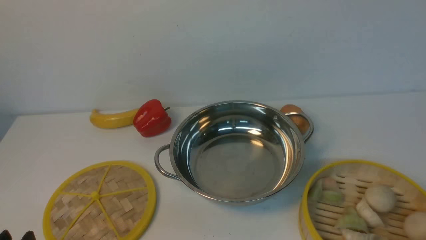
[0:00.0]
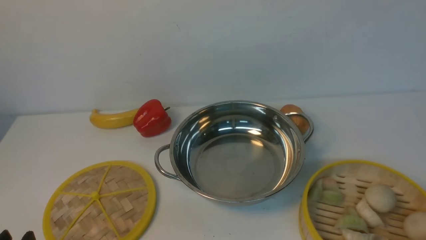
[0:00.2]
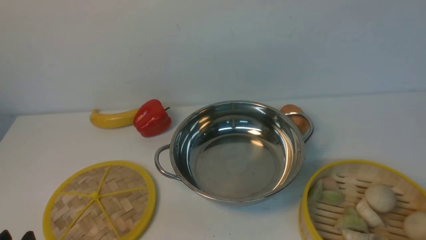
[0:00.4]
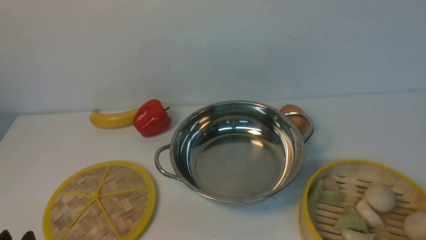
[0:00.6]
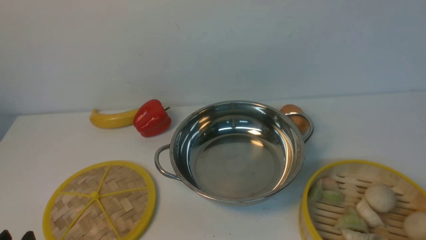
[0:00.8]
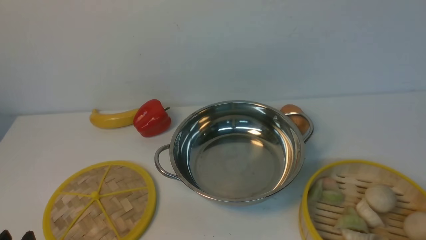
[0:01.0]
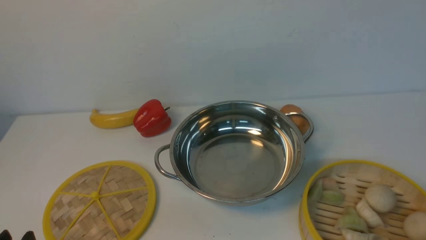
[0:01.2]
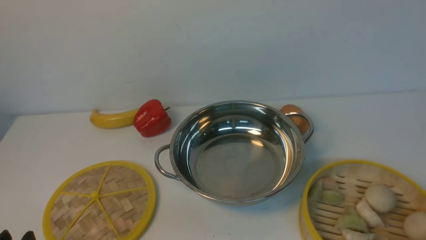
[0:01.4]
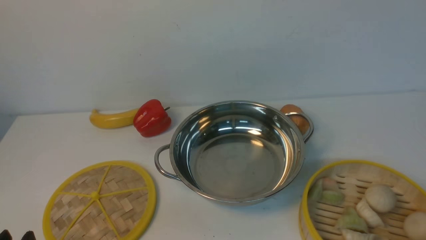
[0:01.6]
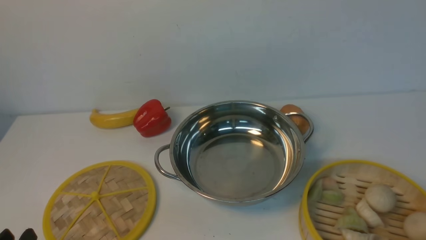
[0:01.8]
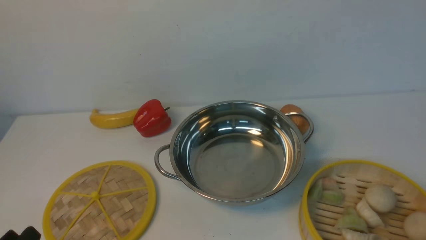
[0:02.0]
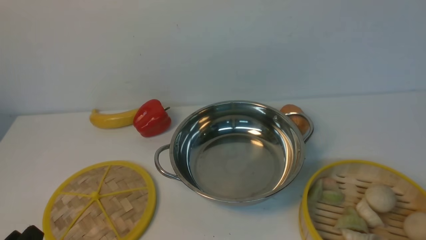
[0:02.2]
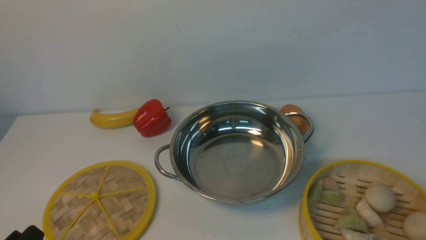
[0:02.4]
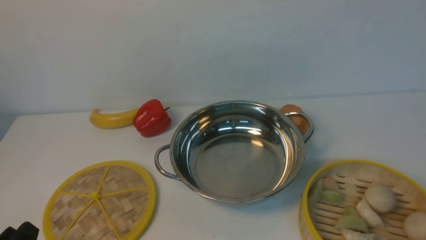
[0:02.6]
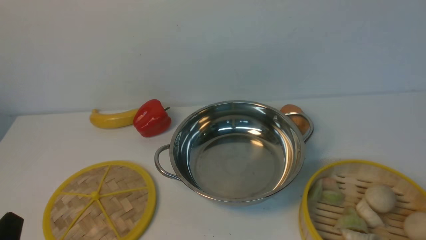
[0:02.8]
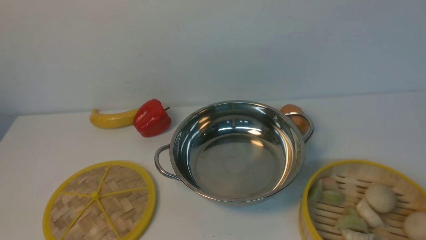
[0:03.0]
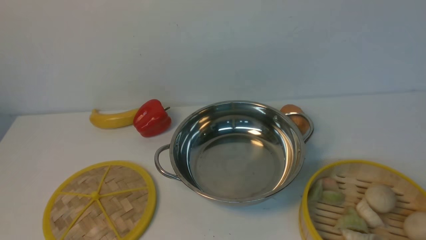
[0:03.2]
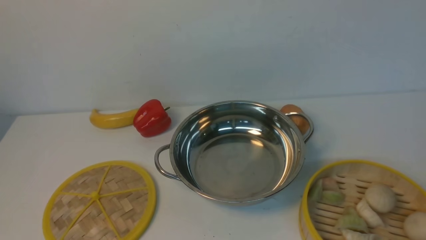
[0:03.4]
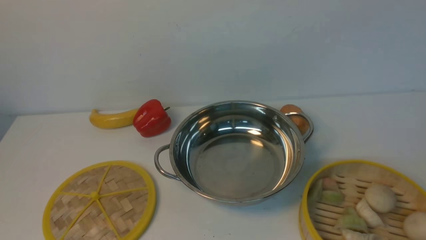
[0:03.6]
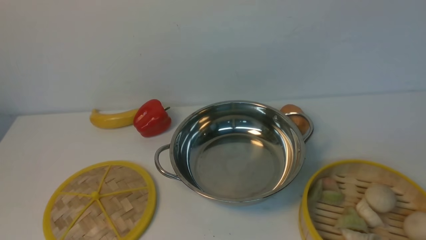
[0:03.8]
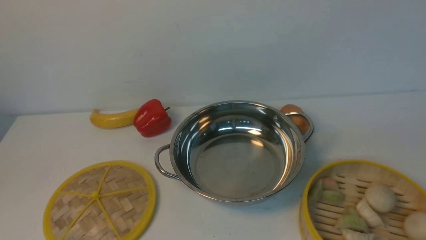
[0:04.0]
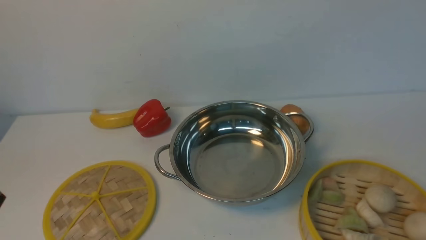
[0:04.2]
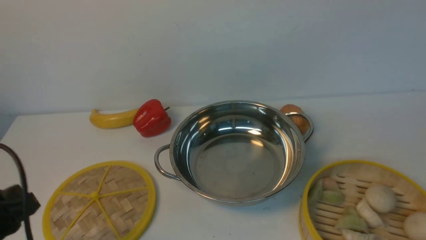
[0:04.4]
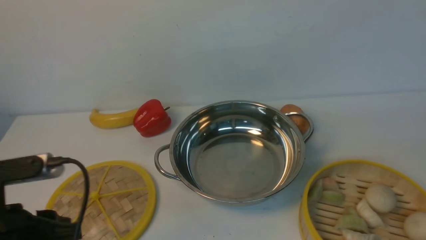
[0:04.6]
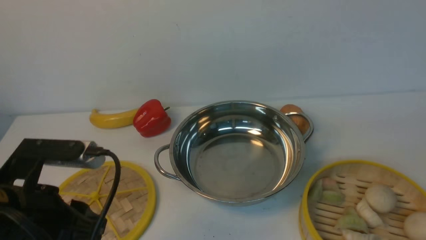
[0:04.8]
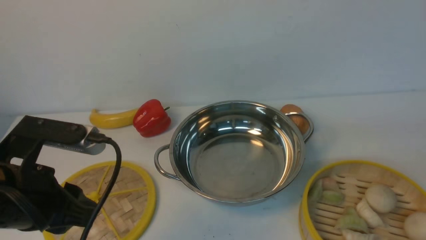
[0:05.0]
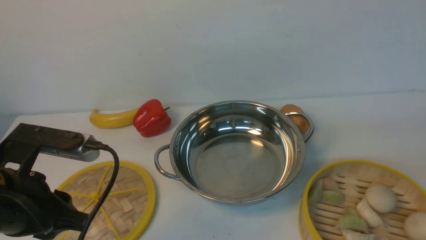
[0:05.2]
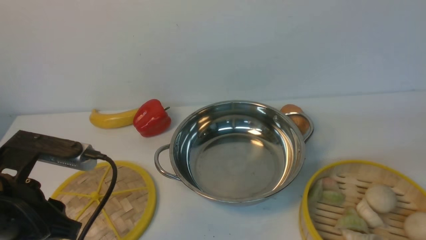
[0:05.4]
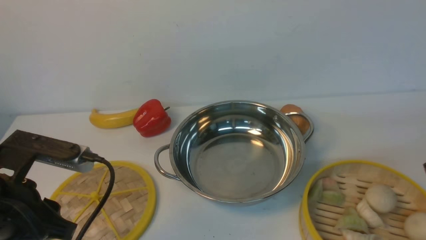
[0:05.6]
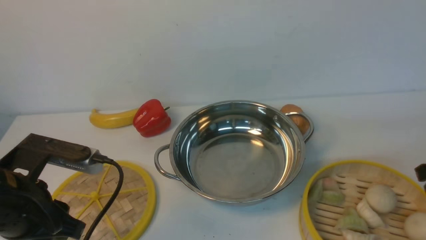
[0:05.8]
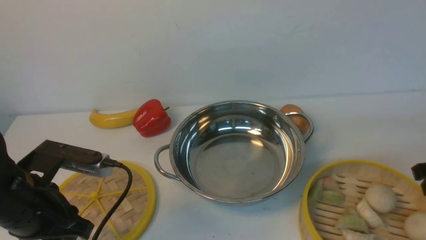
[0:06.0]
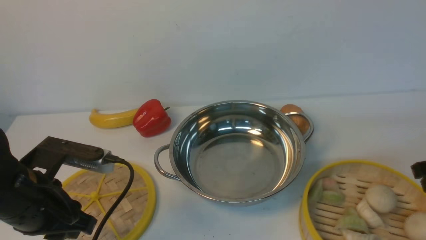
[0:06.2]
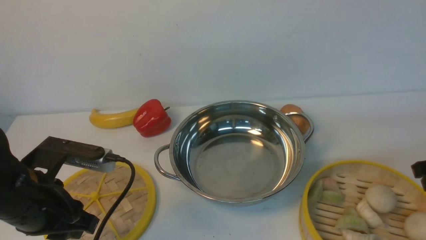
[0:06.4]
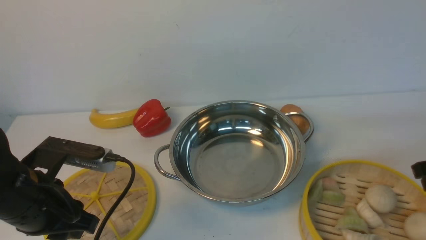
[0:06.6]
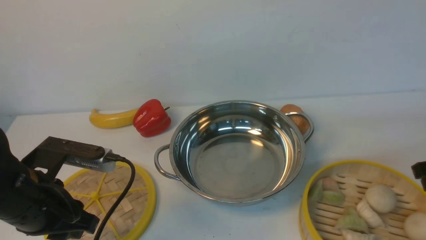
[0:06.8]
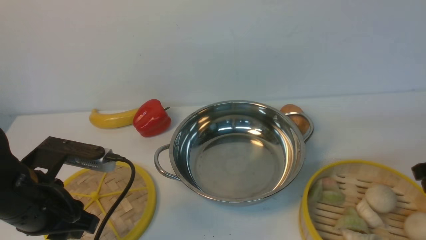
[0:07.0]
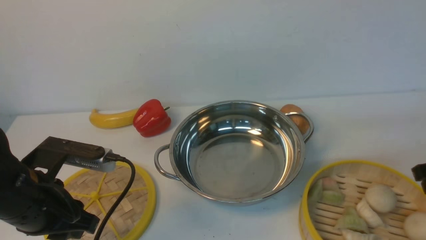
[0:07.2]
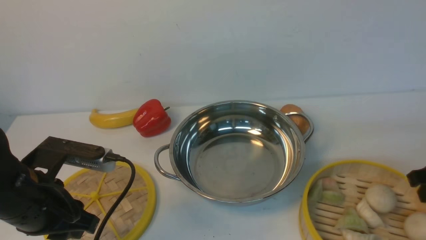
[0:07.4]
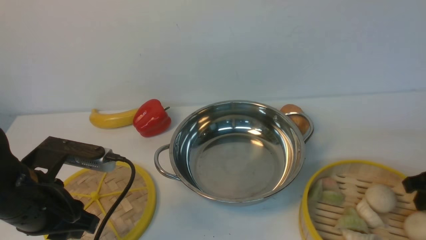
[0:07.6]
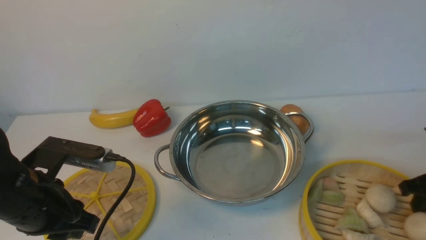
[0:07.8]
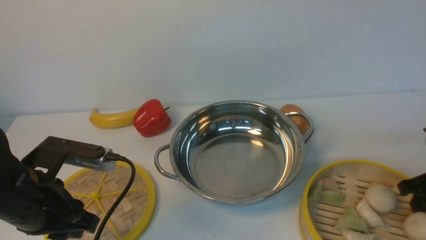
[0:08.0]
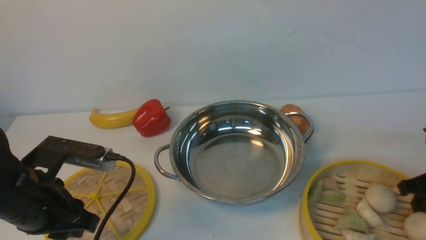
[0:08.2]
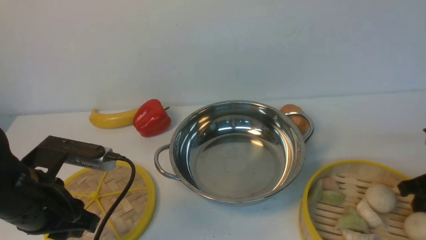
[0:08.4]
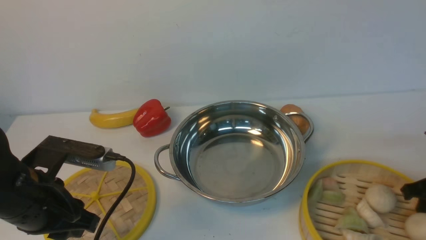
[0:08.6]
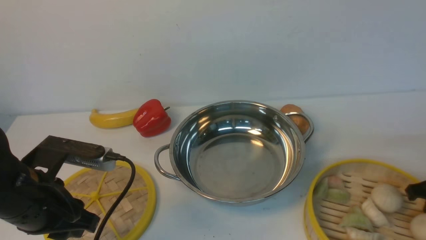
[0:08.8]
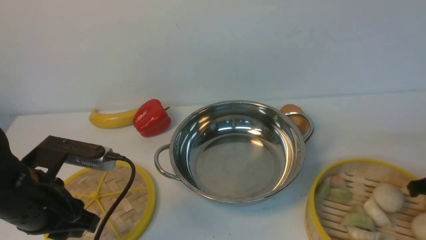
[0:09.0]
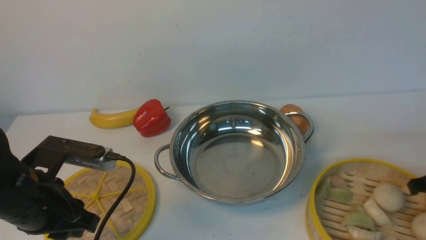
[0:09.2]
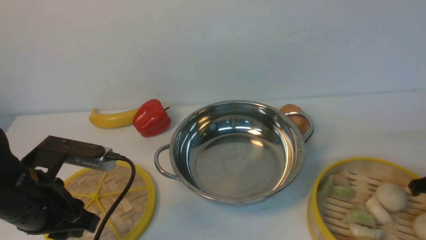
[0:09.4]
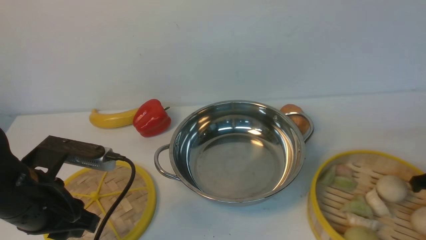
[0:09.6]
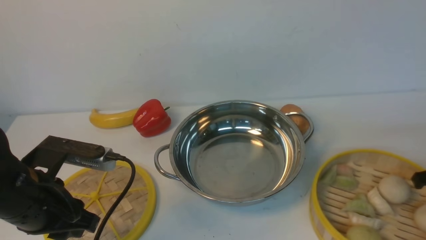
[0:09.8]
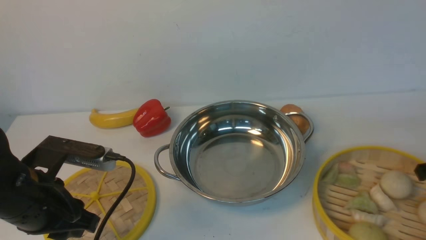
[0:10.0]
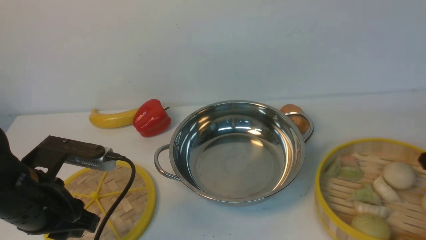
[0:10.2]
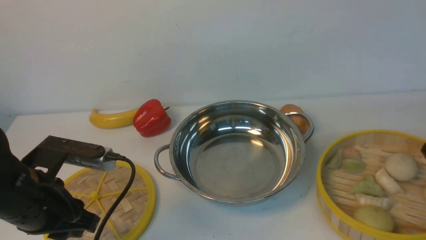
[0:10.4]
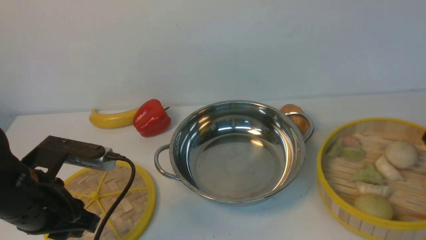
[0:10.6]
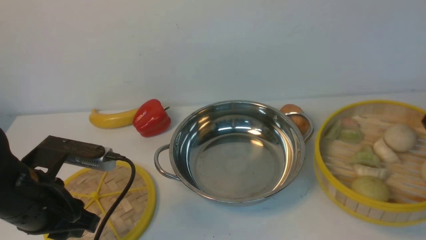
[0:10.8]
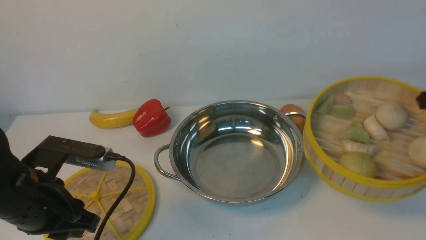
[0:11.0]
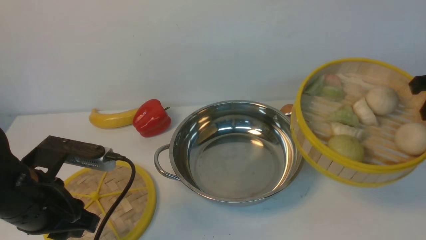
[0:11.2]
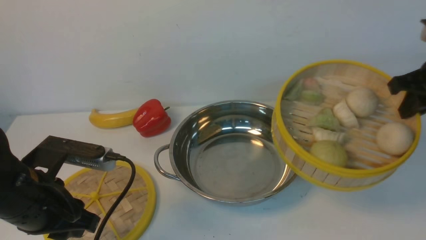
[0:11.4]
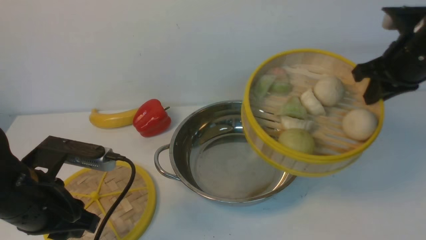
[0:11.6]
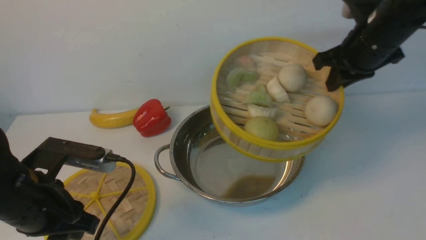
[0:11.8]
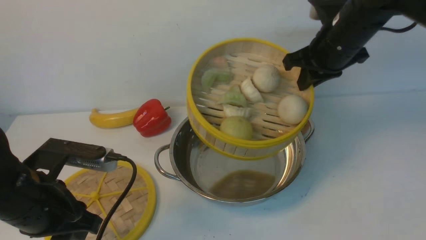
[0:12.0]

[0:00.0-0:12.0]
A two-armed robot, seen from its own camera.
Task of the whole recording: place the steamer in the pot on the white table, and put the lid on the steamer.
Step, 0:00.0 to 0:10.6: use the right arm to lift the steamer closest to it.
0:03.0 to 0:04.4: The left gripper moves forward and upward, approximately 10 cm.
0:04.4 to 0:06.0: The left gripper shifts approximately 10 cm forward.
0:06.0 to 0:09.0: The grippers make only small movements.
0:09.0 to 0:10.4: The right gripper shifts roughly 5 cm upward.
0:10.4 to 0:12.0: The right gripper travels to the left, forward and upward by about 20 cm.

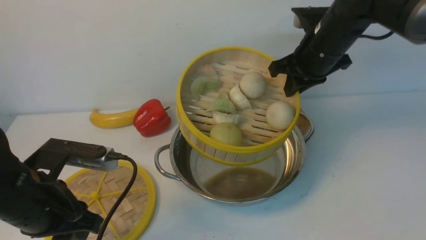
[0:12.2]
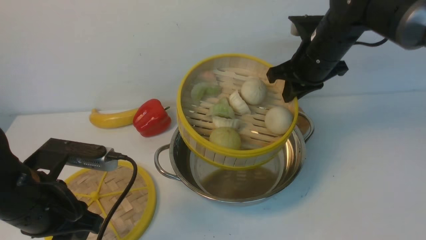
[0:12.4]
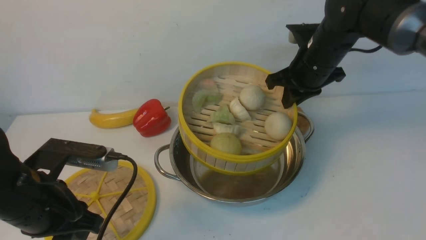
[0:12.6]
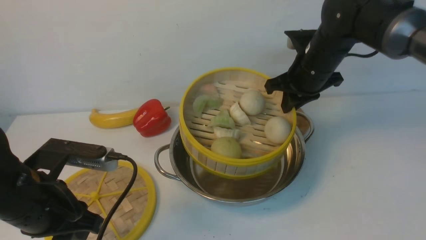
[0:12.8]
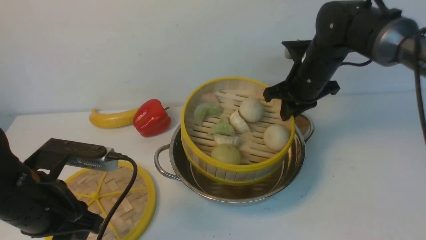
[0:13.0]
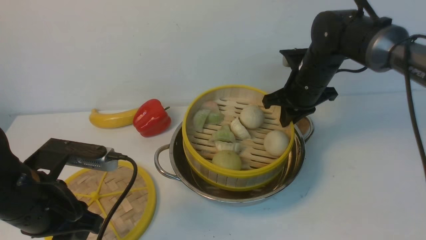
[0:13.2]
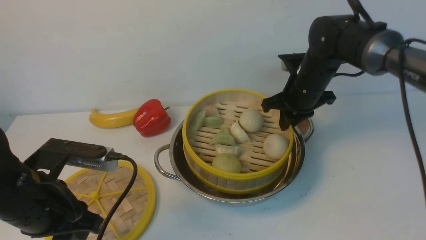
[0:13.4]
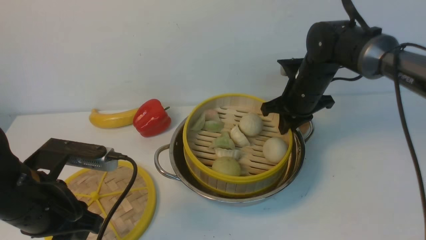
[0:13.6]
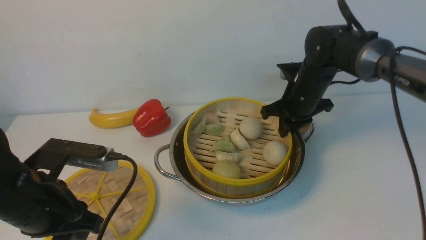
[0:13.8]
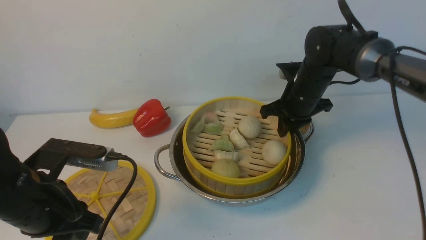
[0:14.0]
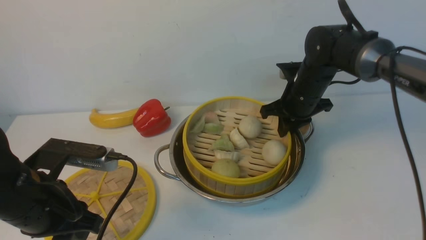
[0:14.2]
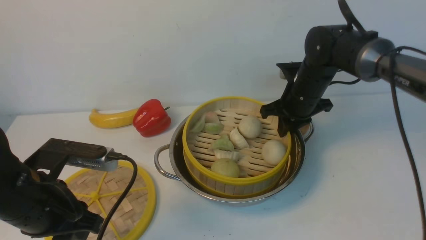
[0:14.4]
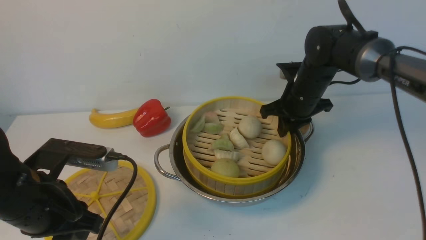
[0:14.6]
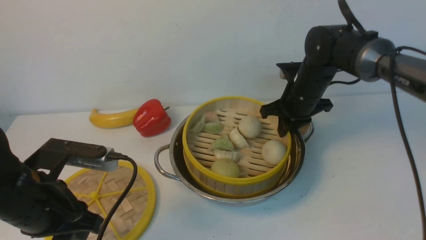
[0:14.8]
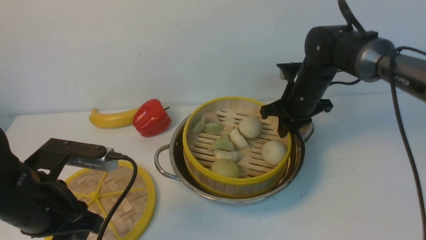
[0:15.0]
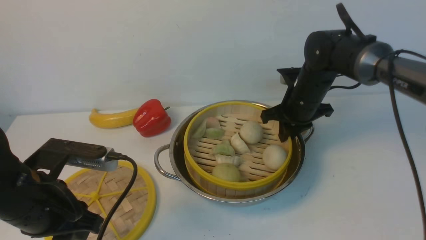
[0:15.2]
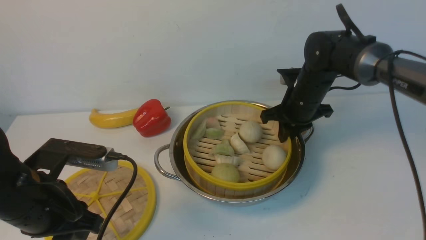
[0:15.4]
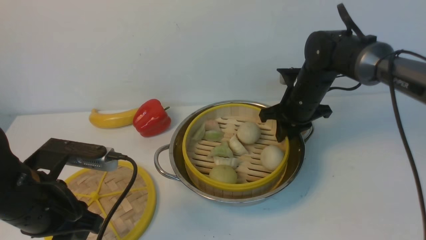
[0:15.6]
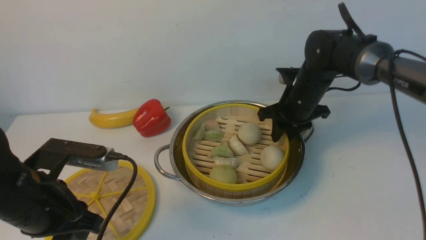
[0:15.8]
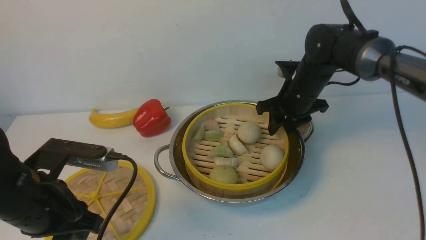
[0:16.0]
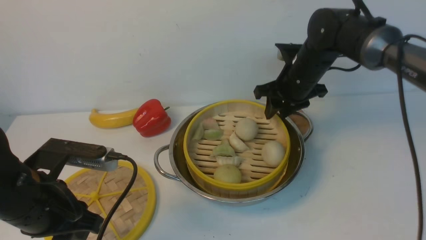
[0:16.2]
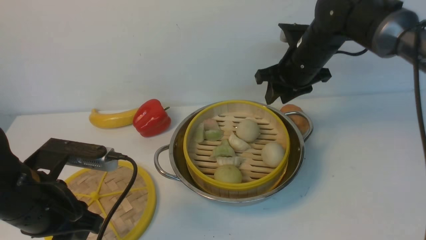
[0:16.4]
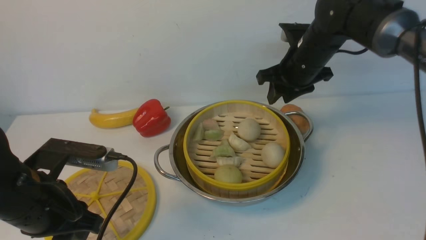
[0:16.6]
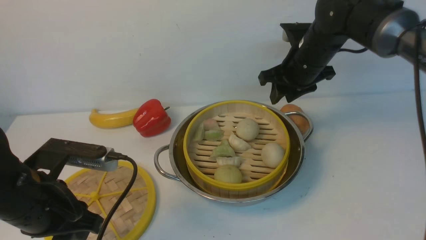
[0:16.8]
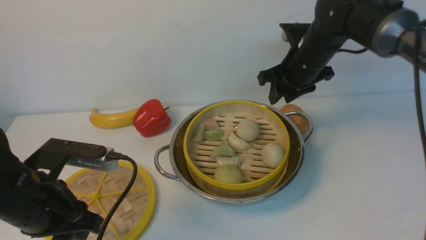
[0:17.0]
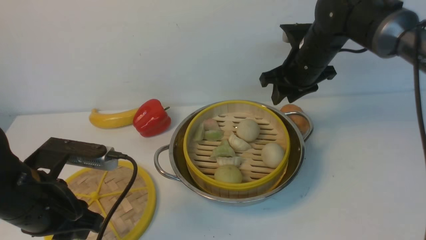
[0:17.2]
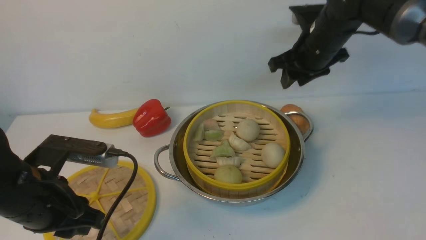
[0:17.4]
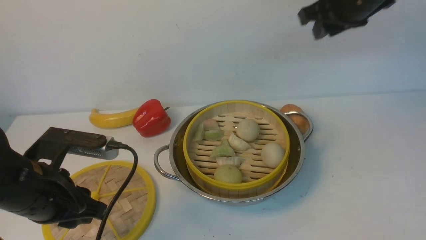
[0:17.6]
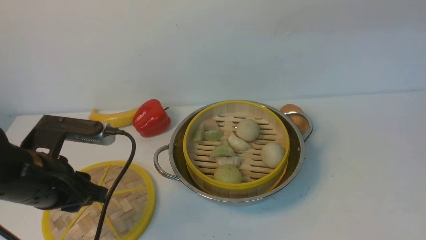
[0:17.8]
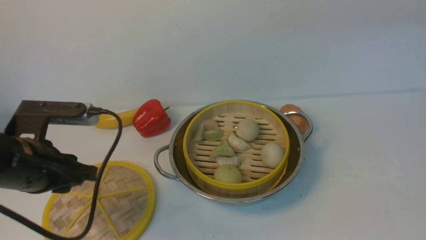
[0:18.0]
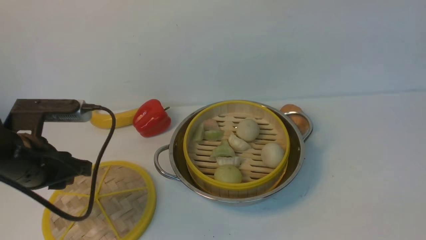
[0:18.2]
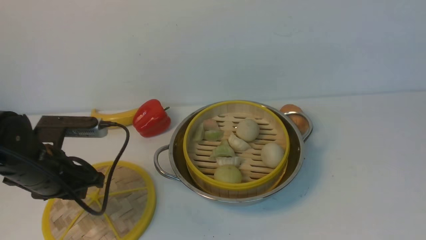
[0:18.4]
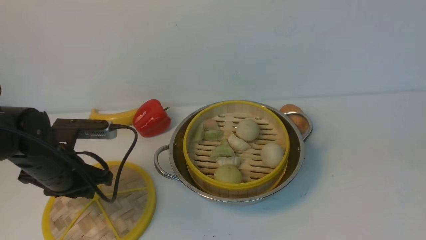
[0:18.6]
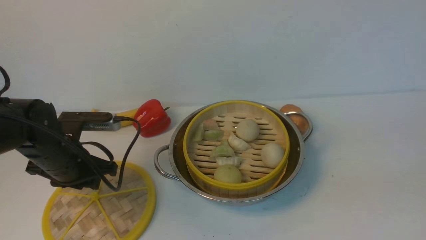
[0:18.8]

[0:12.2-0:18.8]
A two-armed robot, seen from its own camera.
Task of the whole recording: place the steamer in the pot on the white table, and put the lid on the steamer.
Step, 0:12.2 to 0:17.4: use the right arm to put the steamer into the iron steamer pot in the middle.
0:12.2 to 0:13.8: The right gripper shifts roughly 10 cm downward.
0:13.8 to 0:15.4: Neither gripper changes place.
0:15.4 to 0:17.2: The right gripper shifts about 5 cm upward, and opens.
0:17.2 to 0:18.8: The right gripper goes roughly 40 cm backward, and closes. The left gripper heads forward and downward, covering approximately 10 cm.
